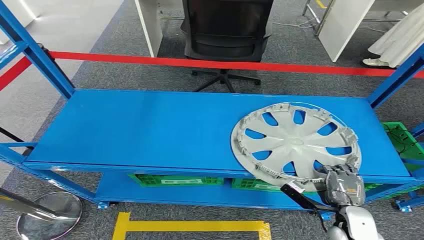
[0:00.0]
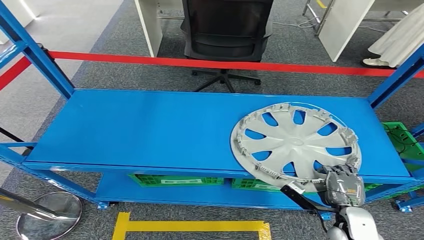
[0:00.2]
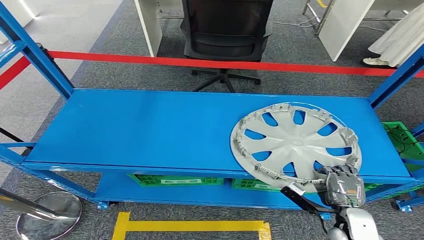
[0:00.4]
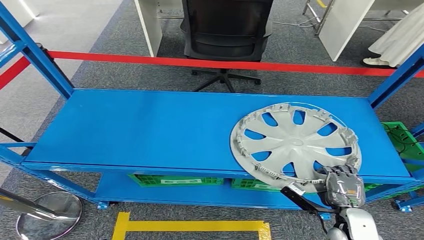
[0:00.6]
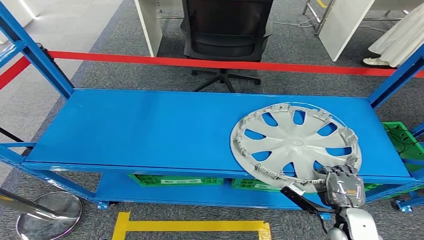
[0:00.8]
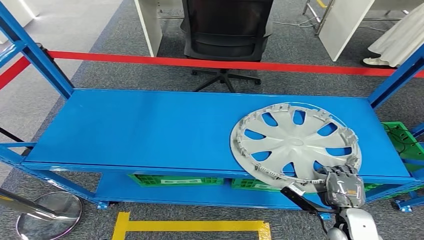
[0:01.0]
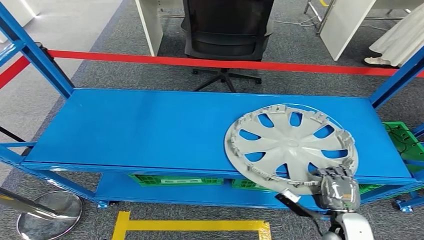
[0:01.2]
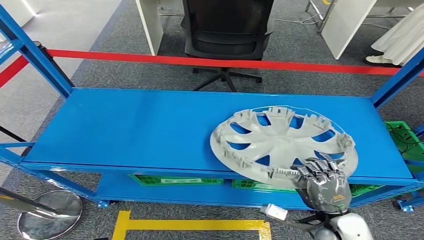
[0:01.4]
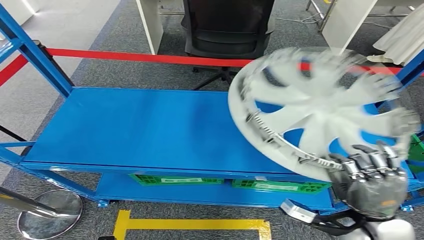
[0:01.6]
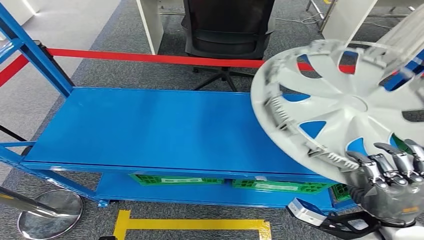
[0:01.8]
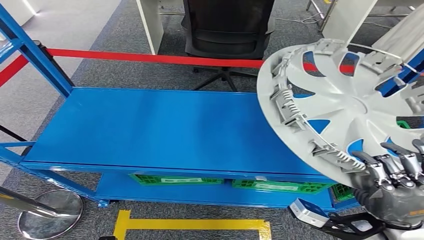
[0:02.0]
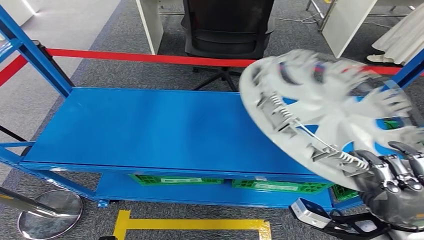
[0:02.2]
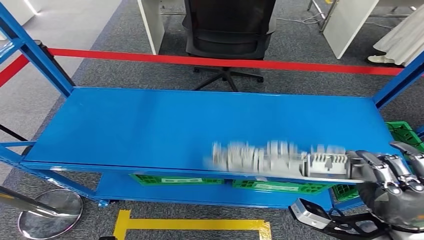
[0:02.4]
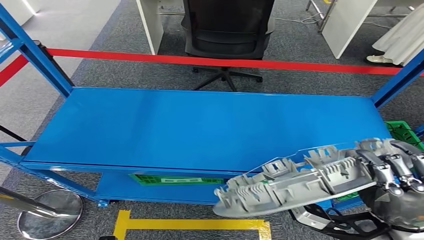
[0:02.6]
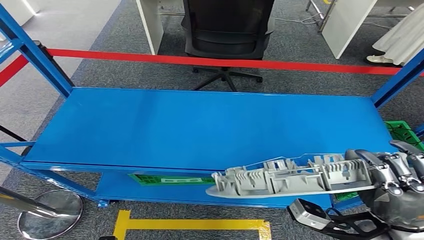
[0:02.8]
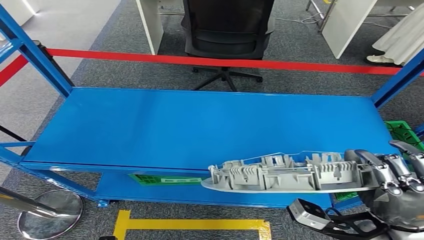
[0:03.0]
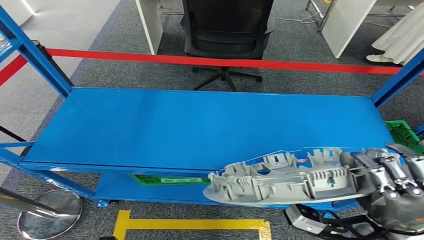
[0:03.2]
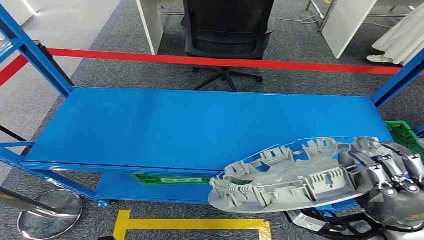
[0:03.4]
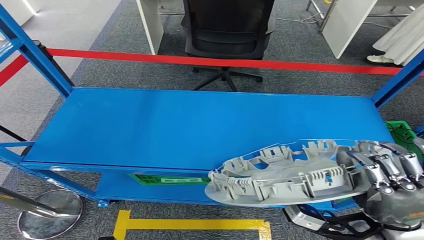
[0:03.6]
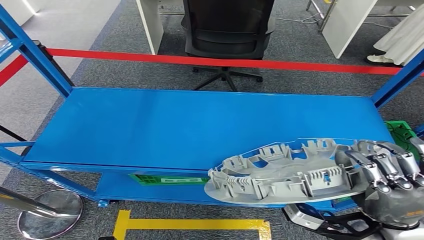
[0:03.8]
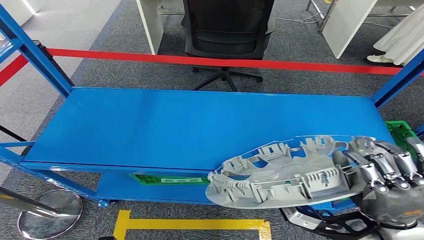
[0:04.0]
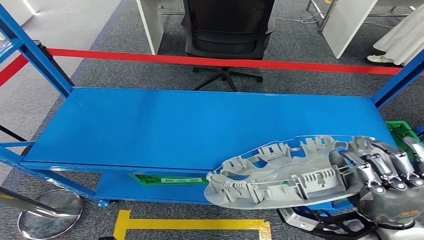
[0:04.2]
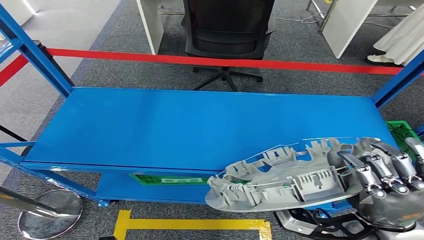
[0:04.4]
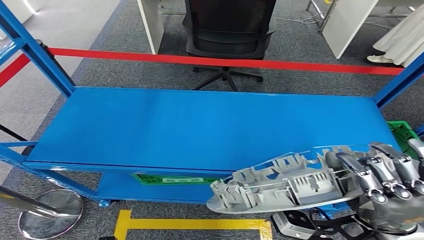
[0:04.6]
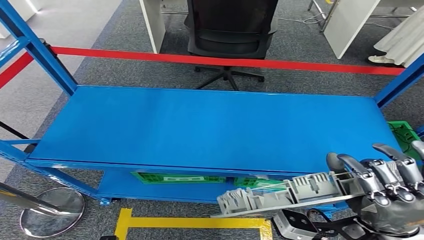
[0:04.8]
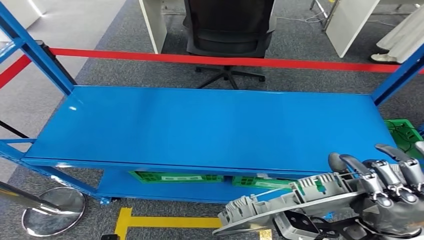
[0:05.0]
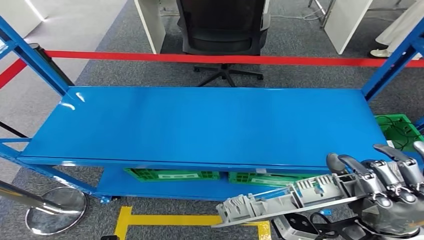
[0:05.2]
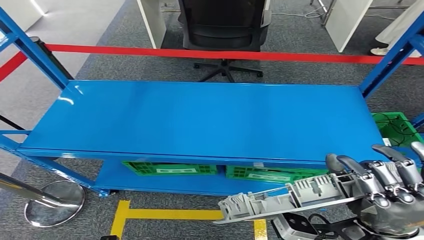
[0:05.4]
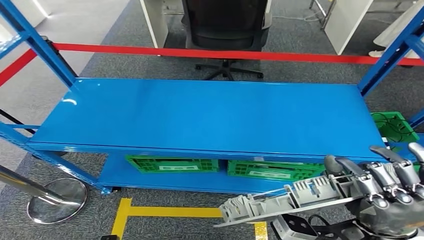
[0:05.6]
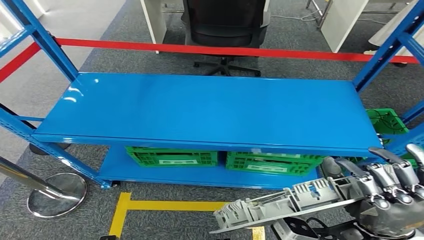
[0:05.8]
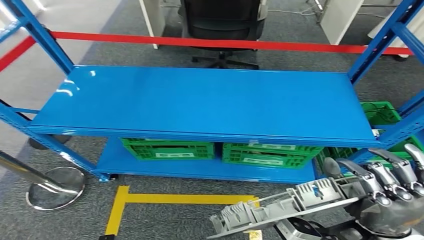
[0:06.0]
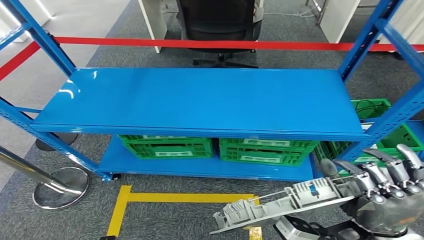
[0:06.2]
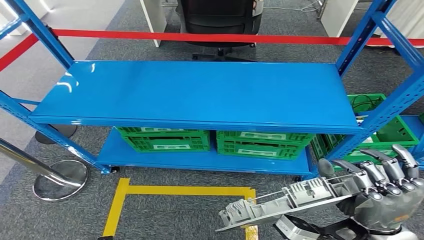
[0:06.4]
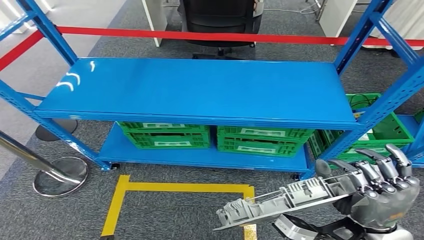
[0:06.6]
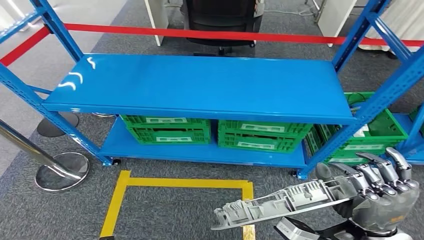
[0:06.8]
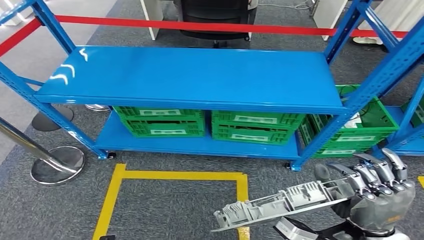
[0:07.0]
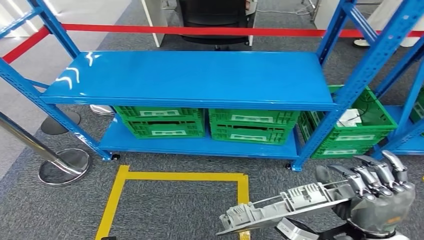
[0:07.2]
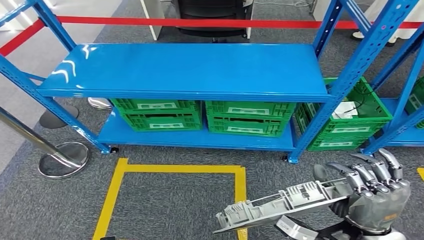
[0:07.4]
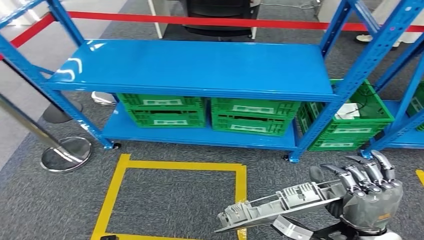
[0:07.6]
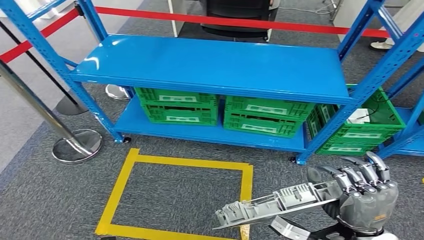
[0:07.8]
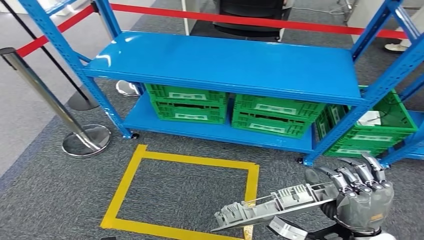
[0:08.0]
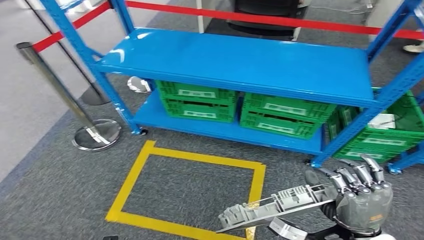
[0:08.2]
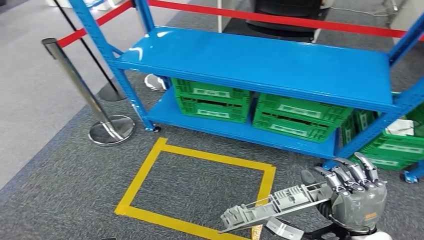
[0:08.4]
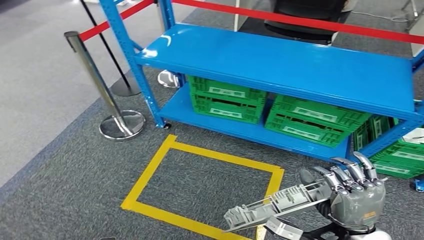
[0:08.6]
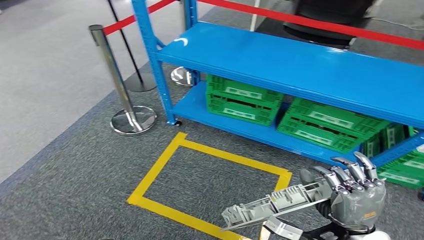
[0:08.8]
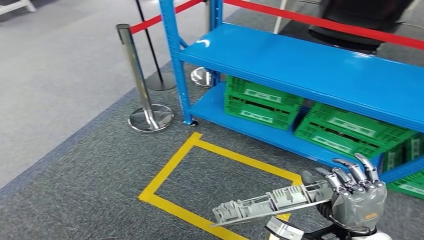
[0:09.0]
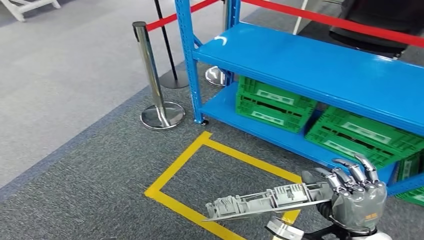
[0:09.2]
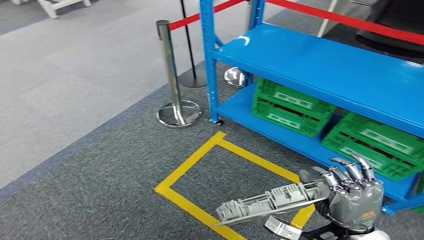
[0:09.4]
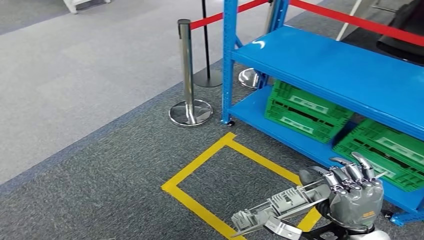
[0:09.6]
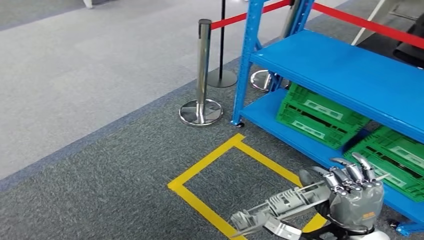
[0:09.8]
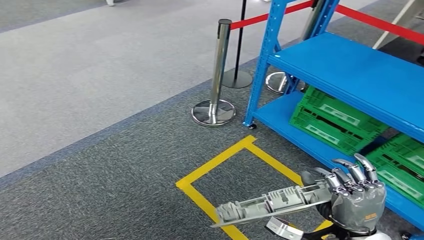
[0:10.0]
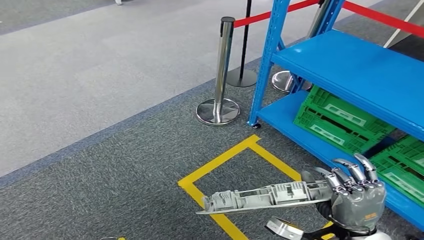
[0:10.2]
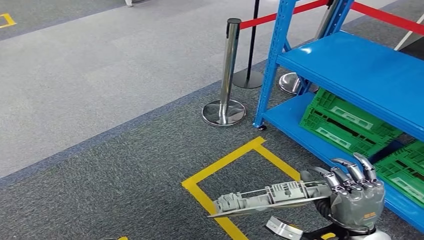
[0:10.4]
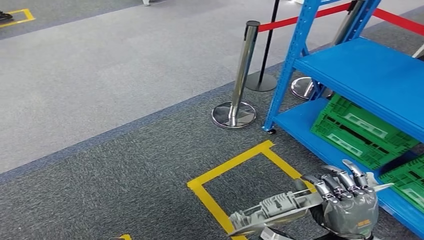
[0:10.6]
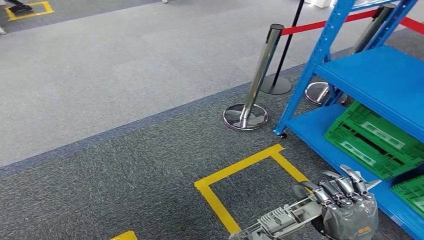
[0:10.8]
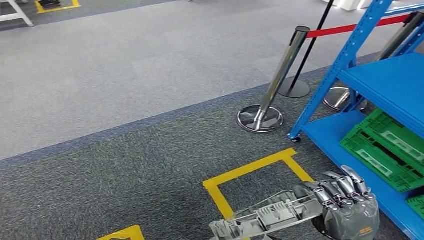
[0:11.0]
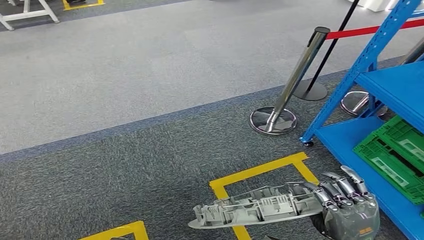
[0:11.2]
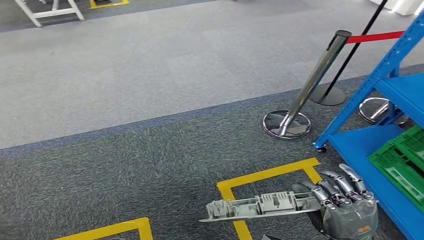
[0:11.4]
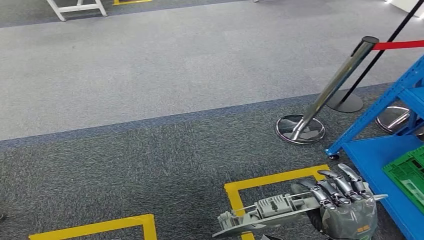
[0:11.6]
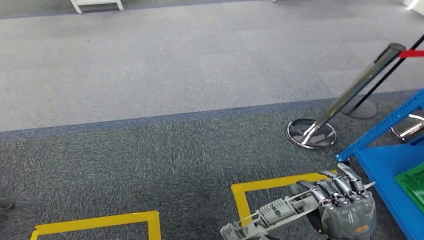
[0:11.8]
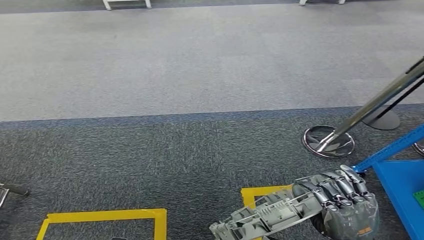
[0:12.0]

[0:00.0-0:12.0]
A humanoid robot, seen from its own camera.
Step, 0:00.0 to 0:02.2: Pick up the small component from the shelf.
0:03.0 to 0:04.4: There are only small adjustments of the hands.

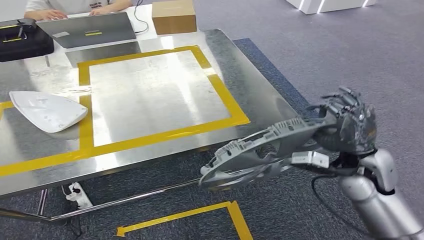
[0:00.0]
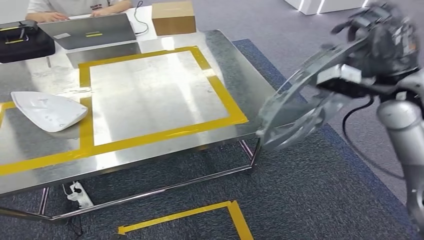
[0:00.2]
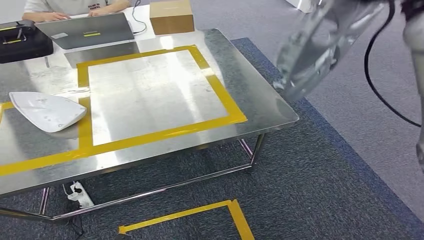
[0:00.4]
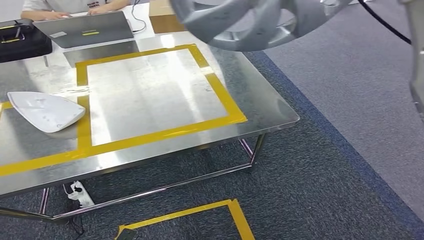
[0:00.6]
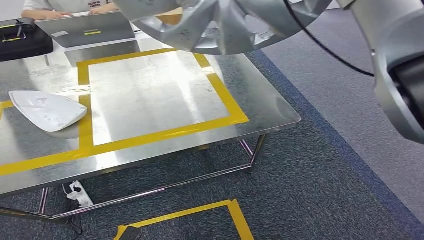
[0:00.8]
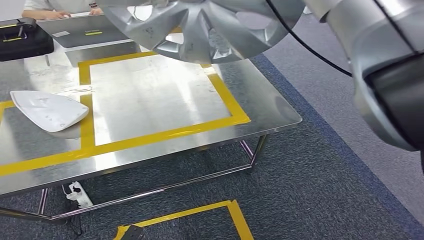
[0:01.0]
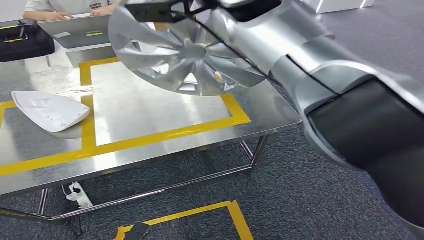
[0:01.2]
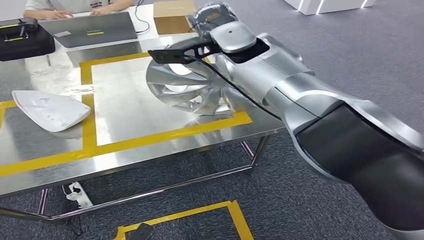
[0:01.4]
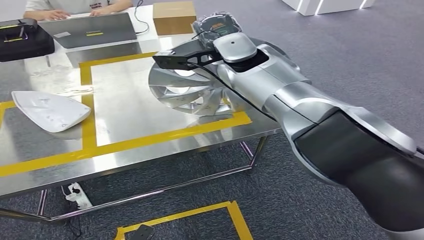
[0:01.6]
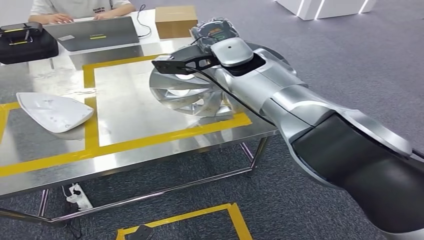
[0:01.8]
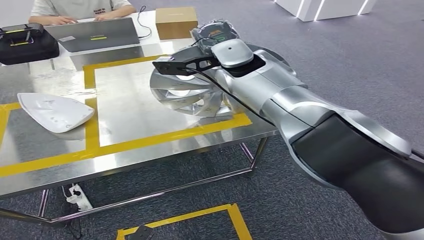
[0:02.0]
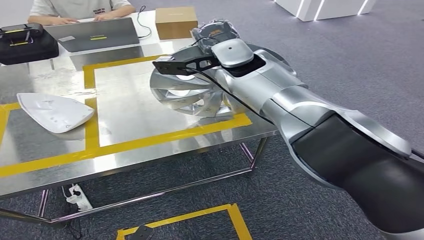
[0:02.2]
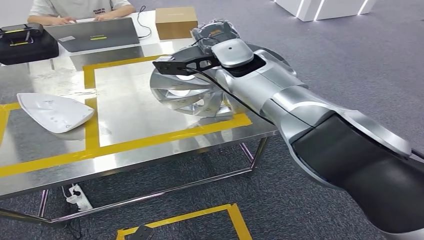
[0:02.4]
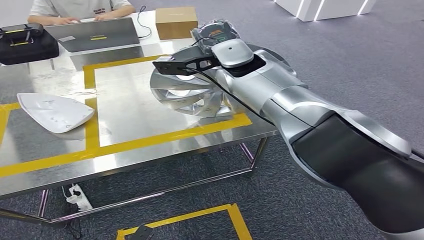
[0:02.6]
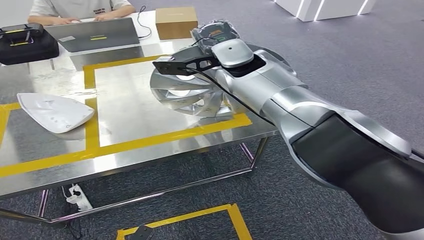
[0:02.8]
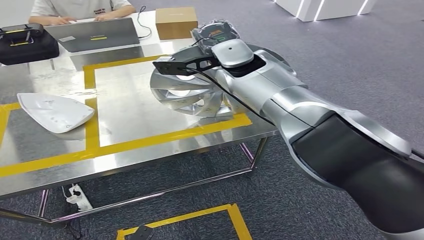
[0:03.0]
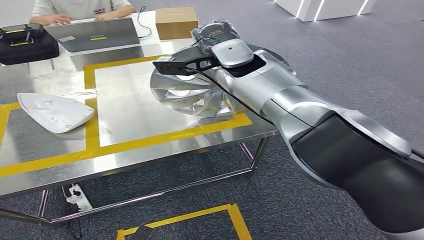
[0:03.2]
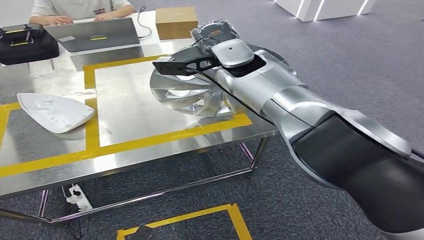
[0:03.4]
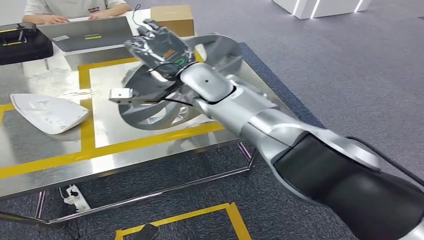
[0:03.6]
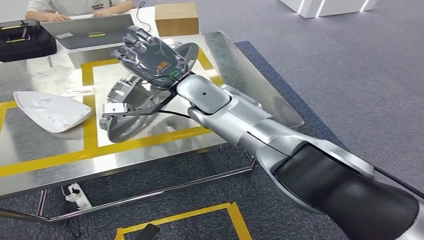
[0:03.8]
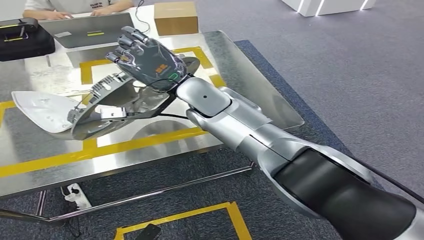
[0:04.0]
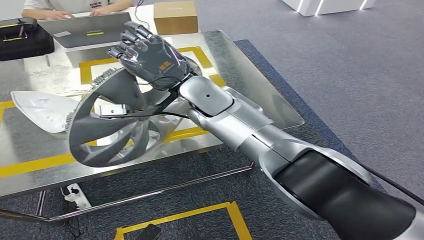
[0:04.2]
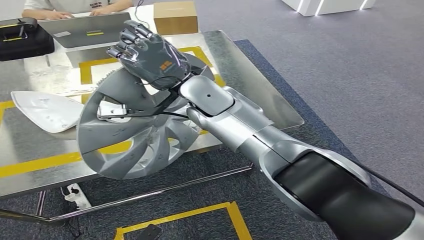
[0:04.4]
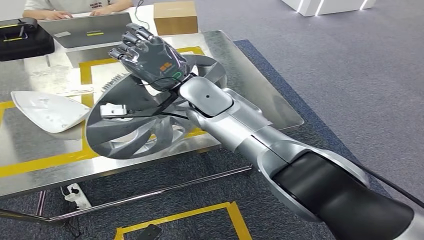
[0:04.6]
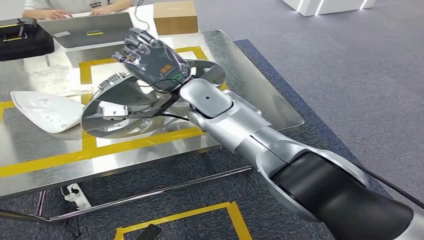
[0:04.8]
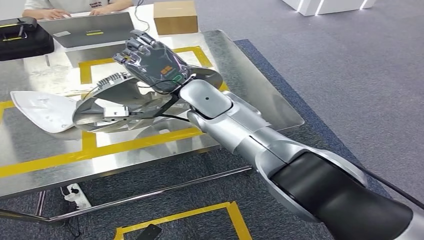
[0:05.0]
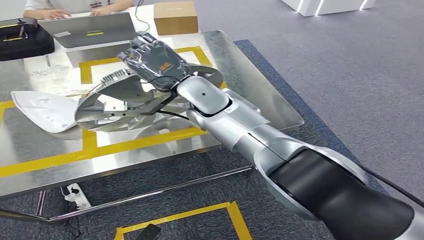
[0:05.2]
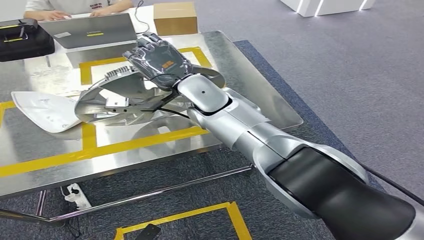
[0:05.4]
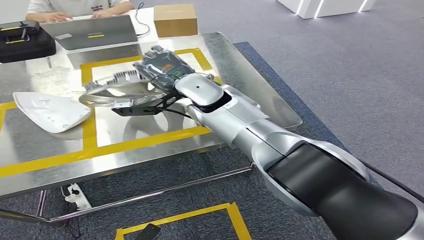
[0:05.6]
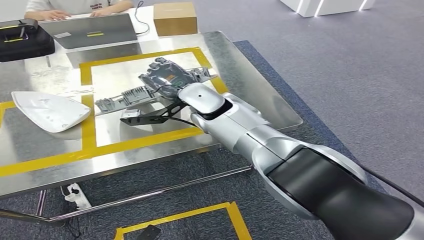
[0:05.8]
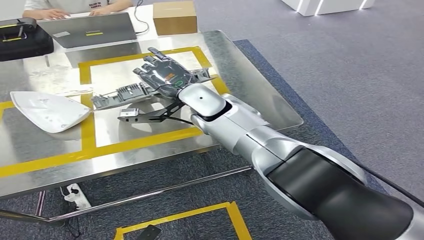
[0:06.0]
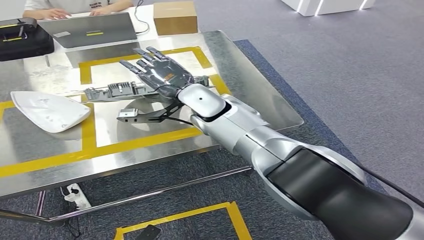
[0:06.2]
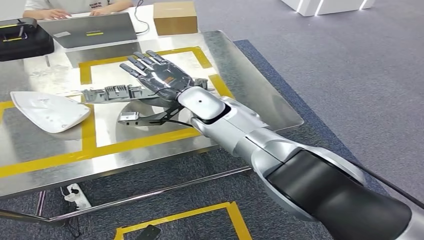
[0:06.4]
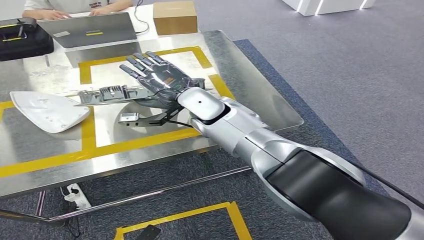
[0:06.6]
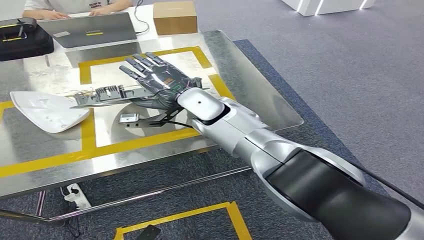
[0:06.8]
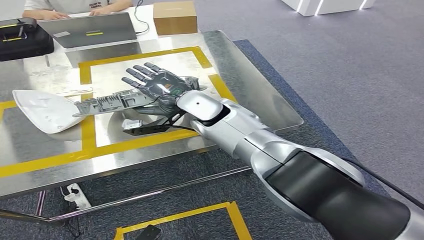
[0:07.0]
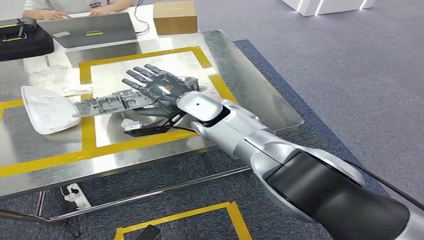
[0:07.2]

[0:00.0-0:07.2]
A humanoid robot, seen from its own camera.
0:05.8 to 0:07.2: There are only small adjustments of the hands.
